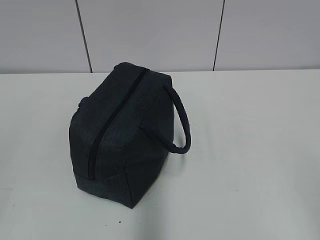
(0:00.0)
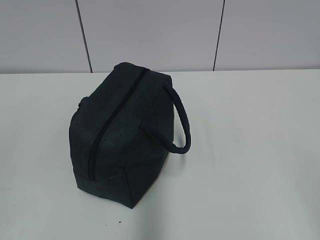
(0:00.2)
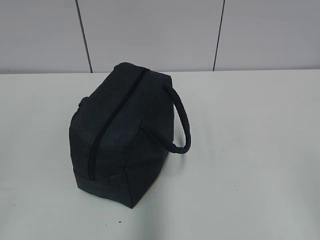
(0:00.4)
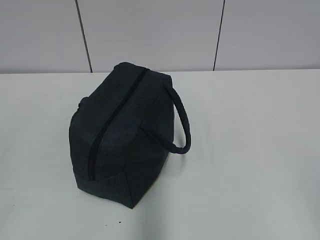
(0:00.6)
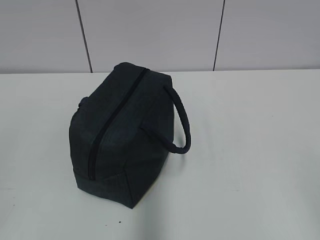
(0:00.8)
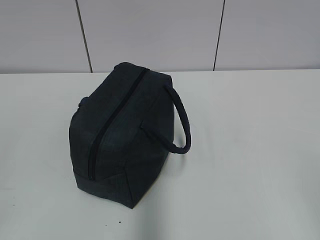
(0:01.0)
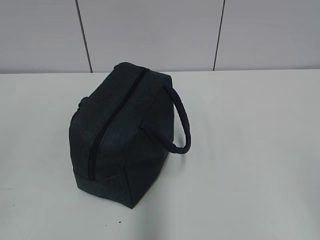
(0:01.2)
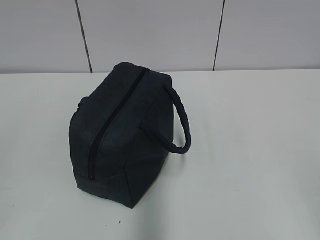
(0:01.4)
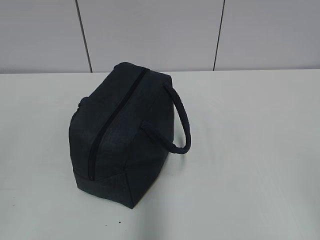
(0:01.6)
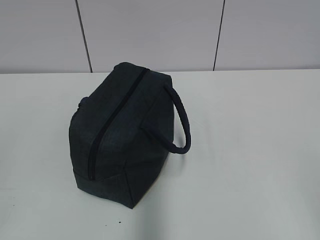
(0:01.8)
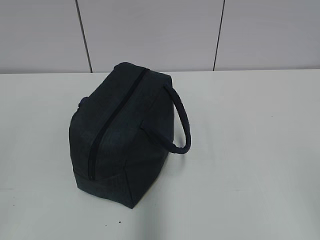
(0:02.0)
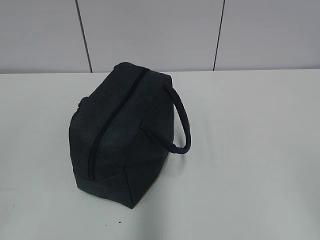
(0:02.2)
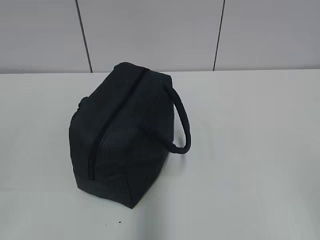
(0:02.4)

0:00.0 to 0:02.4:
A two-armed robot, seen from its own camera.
0:01.2 to 0:02.4: Both grippers stay put.

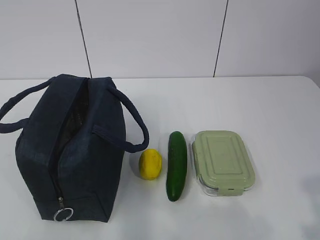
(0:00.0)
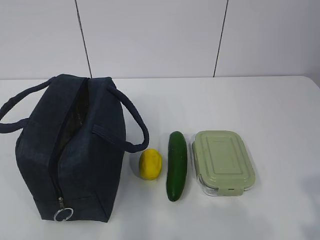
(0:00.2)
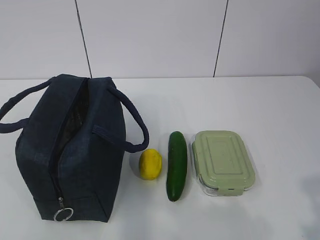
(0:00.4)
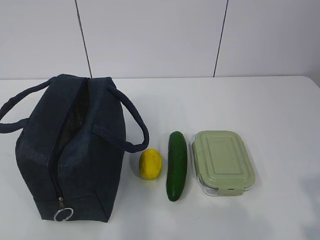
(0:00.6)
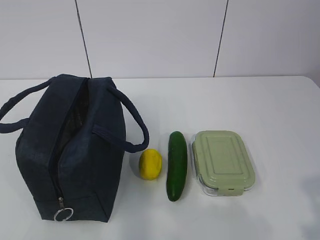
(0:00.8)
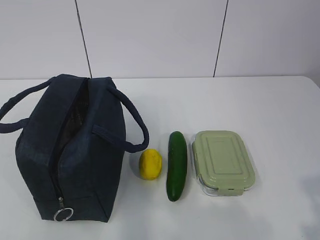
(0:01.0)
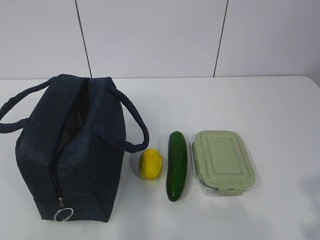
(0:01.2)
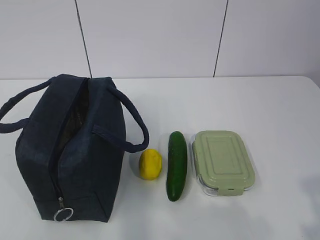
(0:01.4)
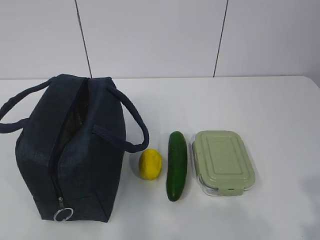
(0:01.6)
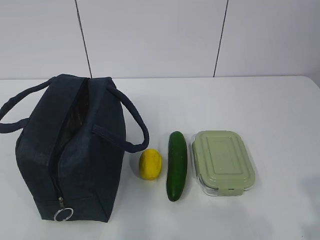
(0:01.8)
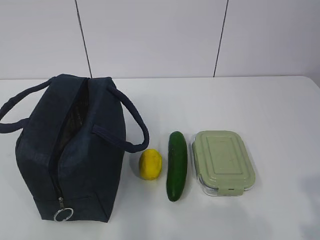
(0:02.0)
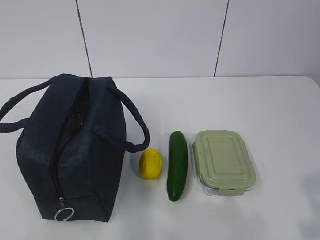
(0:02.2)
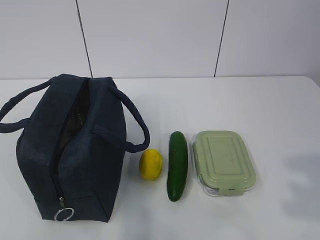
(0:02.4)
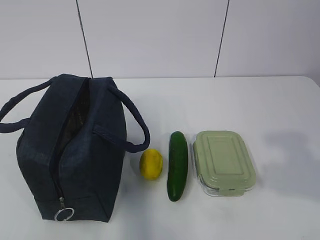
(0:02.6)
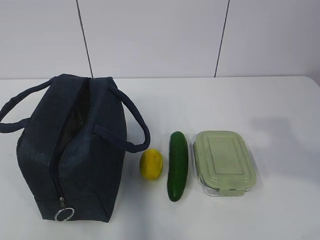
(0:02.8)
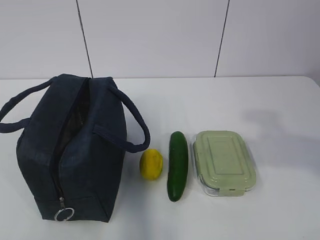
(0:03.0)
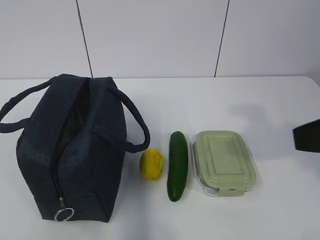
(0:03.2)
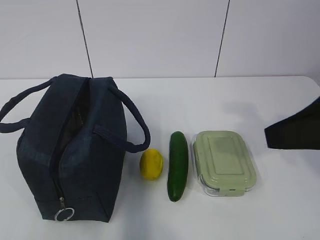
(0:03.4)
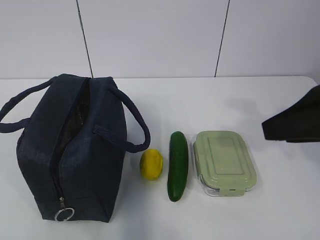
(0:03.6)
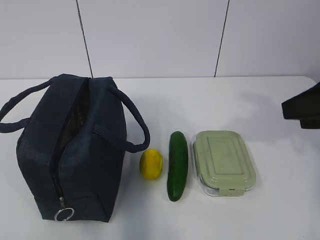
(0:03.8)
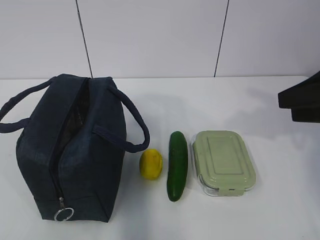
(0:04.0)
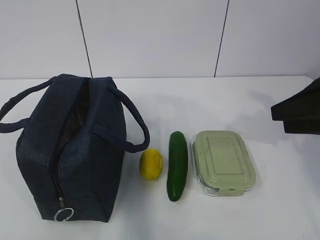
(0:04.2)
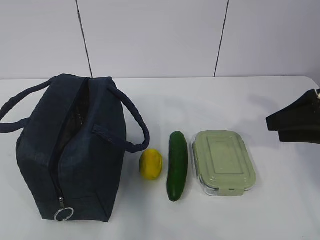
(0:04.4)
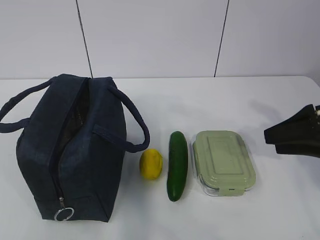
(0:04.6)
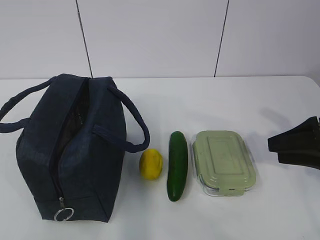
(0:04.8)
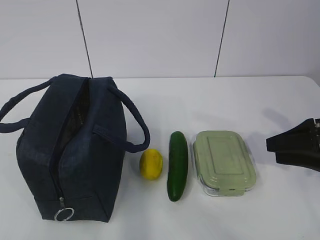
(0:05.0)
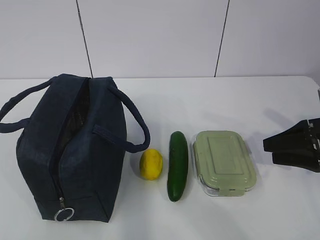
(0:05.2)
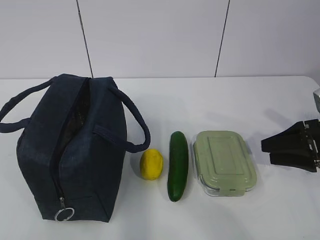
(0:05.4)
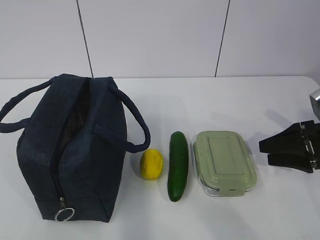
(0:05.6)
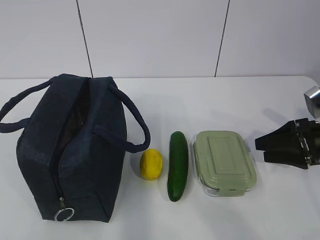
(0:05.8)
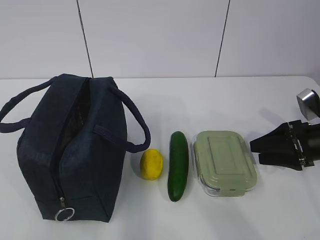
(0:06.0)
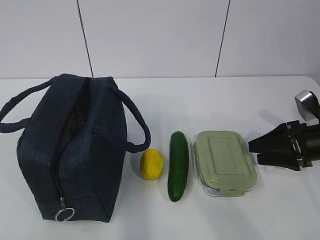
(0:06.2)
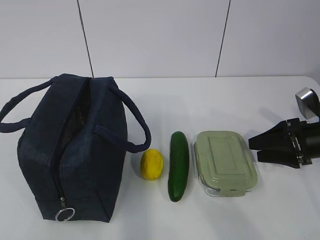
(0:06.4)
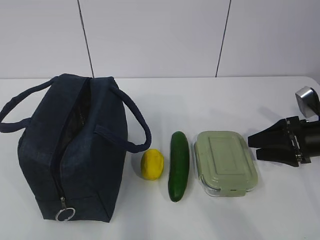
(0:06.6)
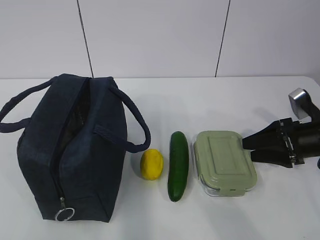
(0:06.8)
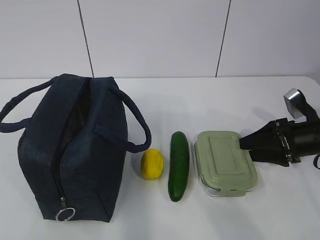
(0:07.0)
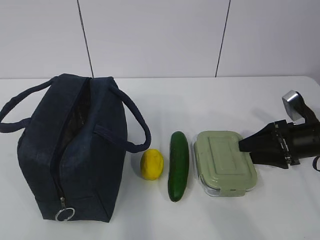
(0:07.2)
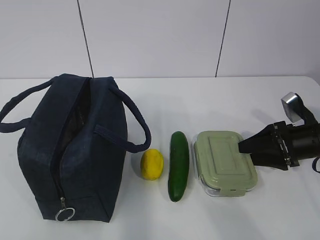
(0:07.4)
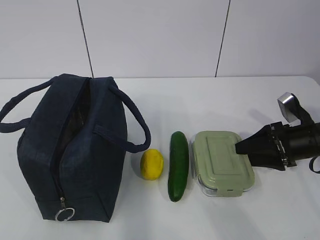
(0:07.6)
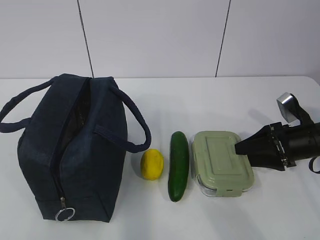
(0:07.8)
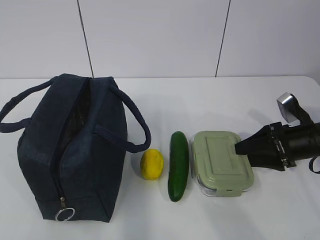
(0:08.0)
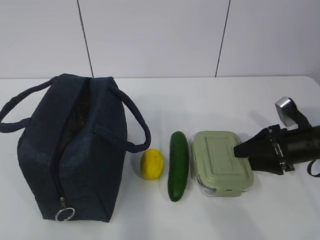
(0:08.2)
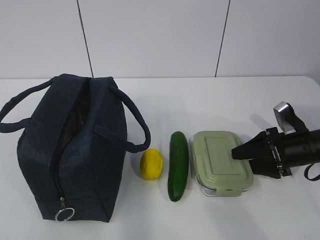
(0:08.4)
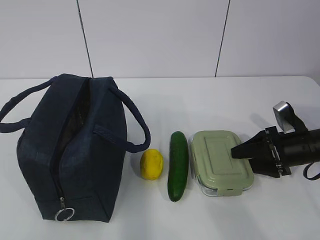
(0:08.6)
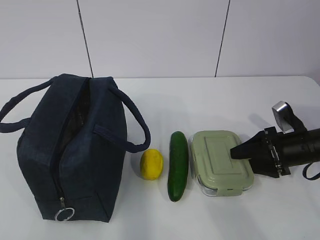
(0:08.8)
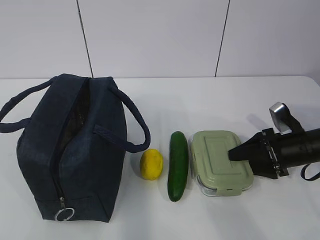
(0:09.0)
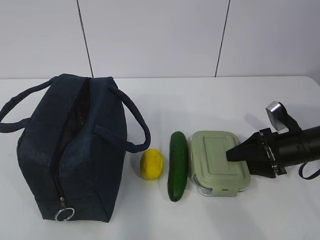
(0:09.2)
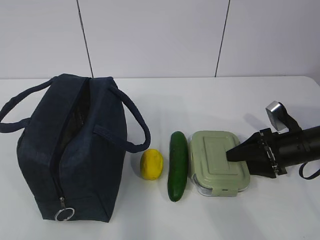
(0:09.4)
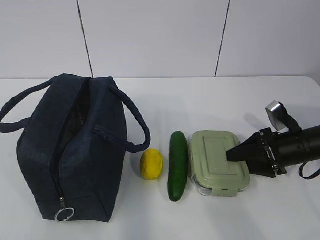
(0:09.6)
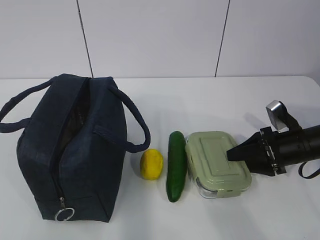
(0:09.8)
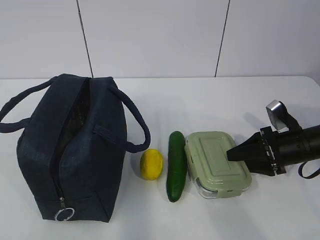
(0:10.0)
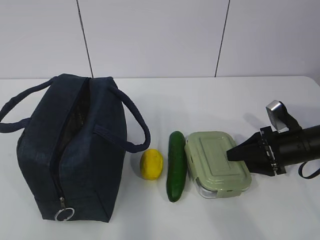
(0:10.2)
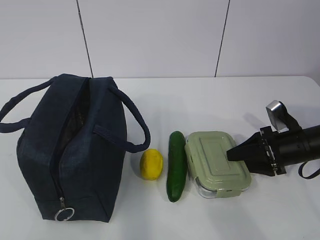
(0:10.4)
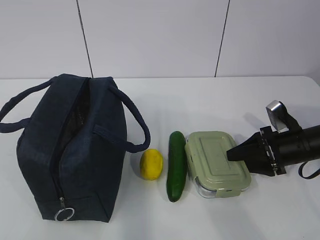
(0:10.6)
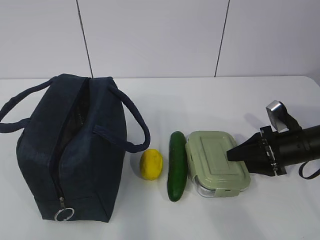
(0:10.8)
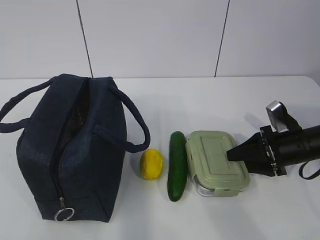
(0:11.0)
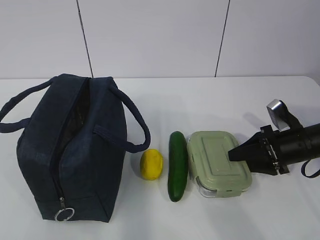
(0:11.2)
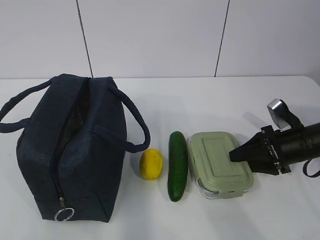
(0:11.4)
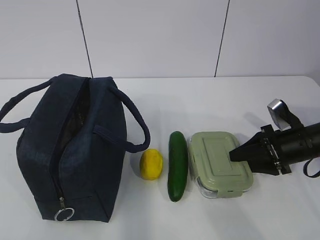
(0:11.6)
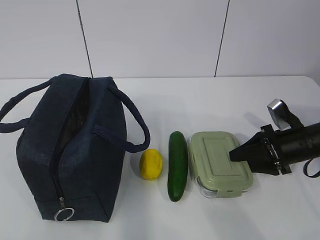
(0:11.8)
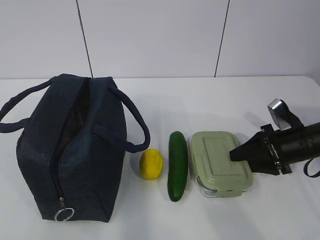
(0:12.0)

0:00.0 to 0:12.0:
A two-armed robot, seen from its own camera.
Step, 0:00.0 to 0:09.0: Grab the lunch box with your right hand.
0:01.6 to 0:03.0: The right gripper is displaced forward and upward by approximately 15 cm.
0:03.0 to 0:04.4: The right gripper goes approximately 20 cm forward and downward.
0:04.4 to 0:06.0: The right gripper heads downward, covering approximately 10 cm.
0:06.0 to 0:09.0: There are only small adjustments of the grippers.
0:09.0 to 0:12.0: Both grippers stay put.

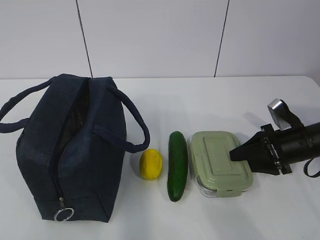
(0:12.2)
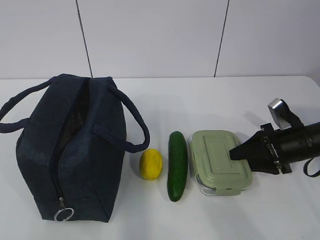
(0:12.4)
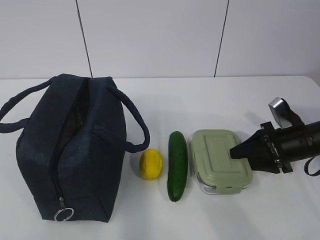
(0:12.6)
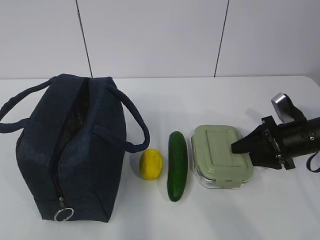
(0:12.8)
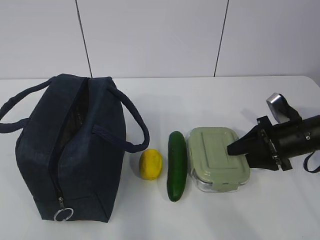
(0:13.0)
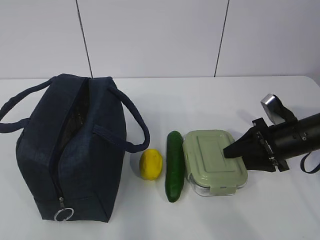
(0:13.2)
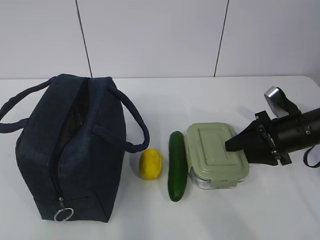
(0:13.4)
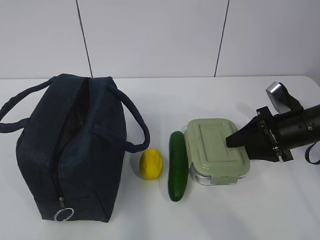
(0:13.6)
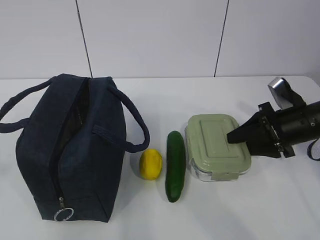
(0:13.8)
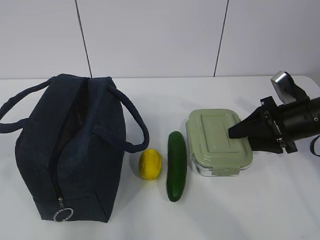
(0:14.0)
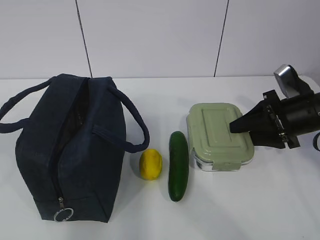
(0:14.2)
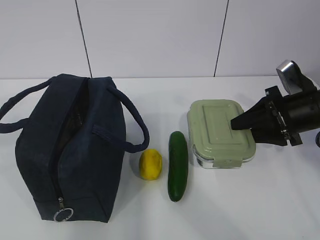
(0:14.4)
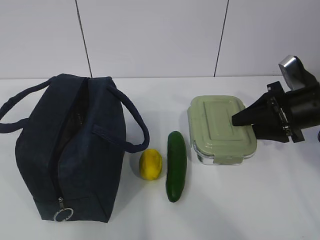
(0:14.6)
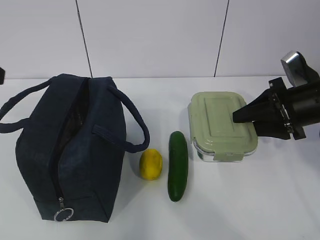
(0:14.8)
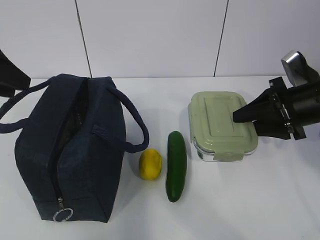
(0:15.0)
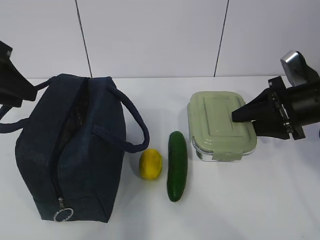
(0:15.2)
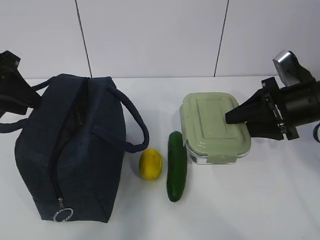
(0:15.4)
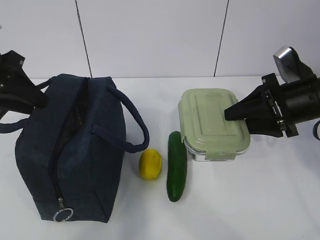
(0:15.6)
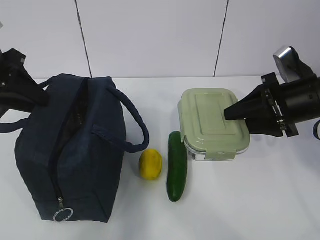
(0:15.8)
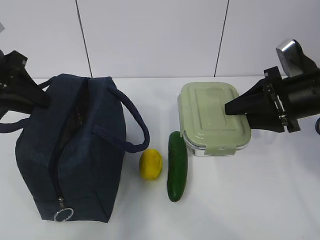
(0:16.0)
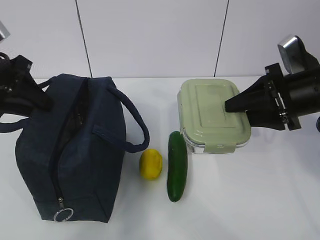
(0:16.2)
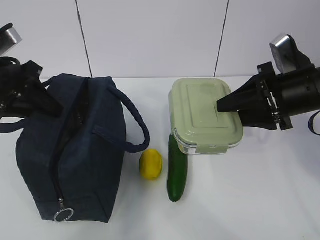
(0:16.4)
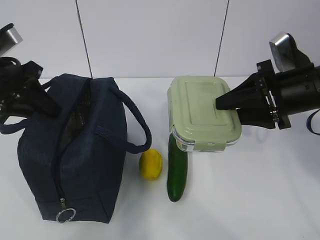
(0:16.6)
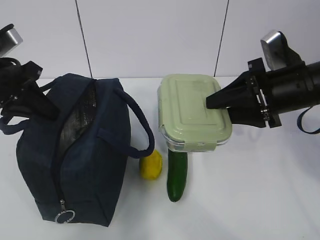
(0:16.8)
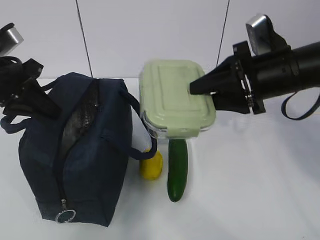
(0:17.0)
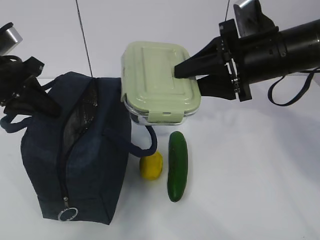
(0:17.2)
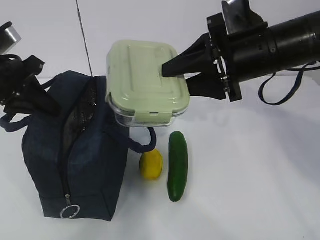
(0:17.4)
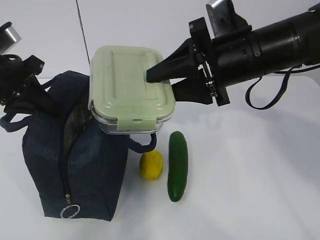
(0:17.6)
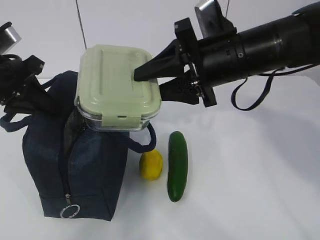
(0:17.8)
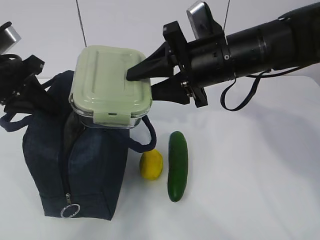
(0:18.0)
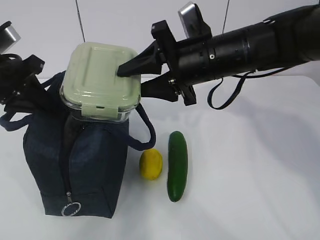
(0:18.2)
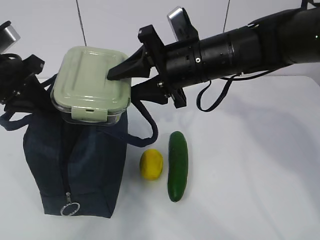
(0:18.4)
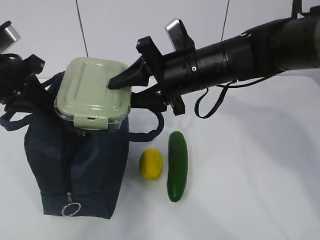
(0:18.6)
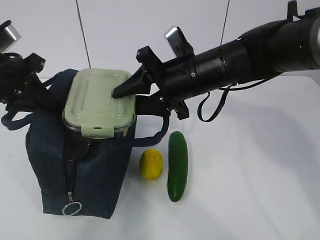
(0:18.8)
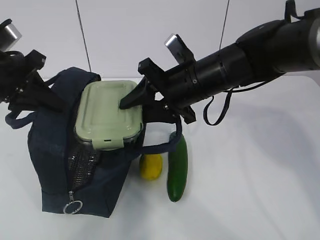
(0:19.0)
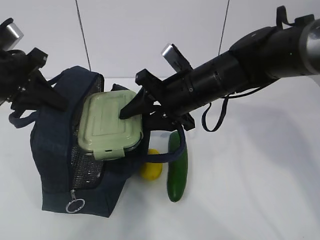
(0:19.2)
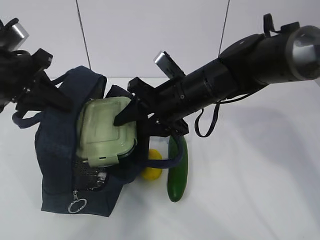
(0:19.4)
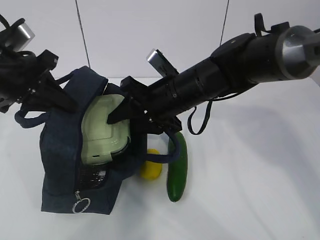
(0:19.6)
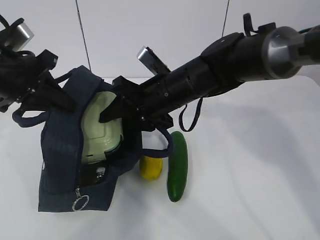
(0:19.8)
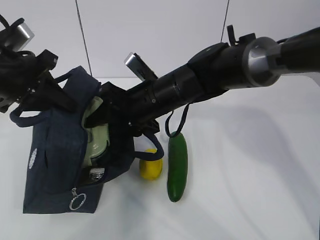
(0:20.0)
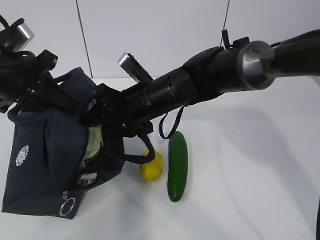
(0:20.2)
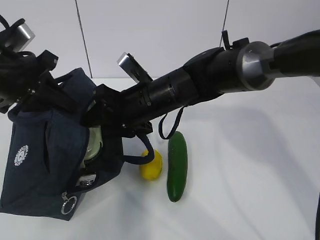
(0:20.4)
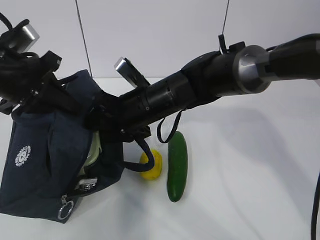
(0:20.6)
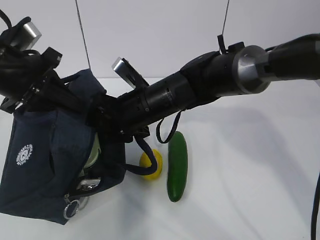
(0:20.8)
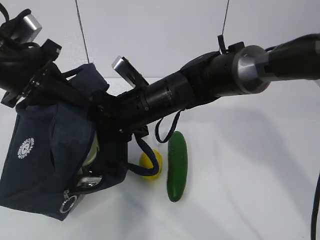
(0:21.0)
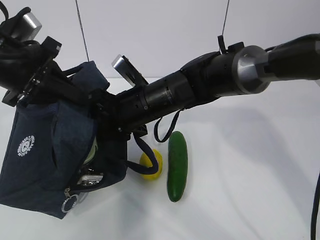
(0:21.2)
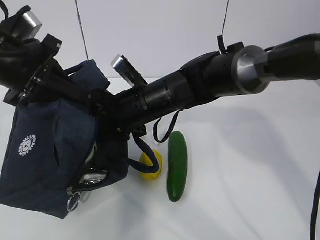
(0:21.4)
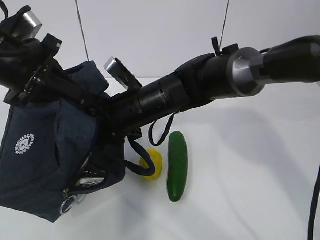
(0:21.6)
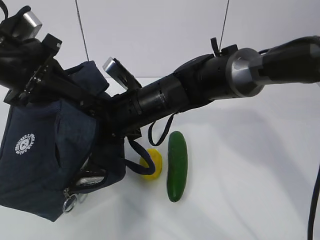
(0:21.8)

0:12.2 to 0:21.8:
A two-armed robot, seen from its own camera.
Step, 0:12.2 to 0:15.0: Grab the lunch bag with your left hand.
Step, 0:15.2 to 0:18.6: Place it into the bag with your right hand.
0:12.2 to 0:13.8: The two grippers go approximately 5 cm upward.
0:13.8 to 0:15.4: The right gripper shifts approximately 5 cm upward, while the left gripper goes roughly 25 cm forward.
0:15.4 to 0:17.0: The right gripper shifts some 10 cm to the left and upward. Meanwhile the left gripper closes.
0:17.0 to 0:18.6: The right gripper shifts about 10 cm to the left.
0:18.6 to 0:20.2: The right gripper shifts roughly 10 cm to the left and downward.
0:20.2 to 0:21.8: The grippers move only a little.
